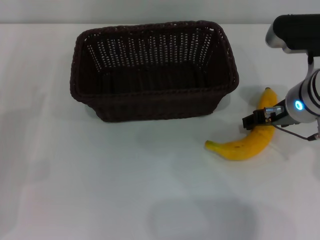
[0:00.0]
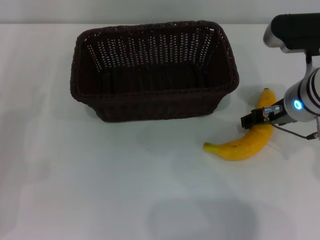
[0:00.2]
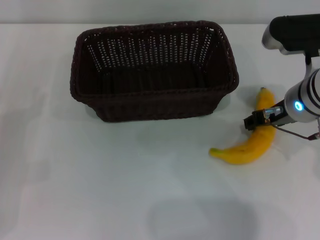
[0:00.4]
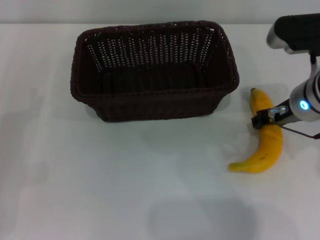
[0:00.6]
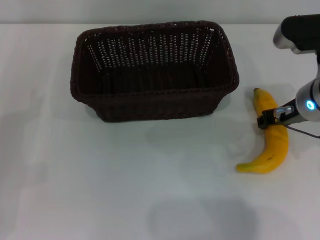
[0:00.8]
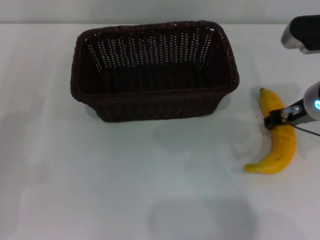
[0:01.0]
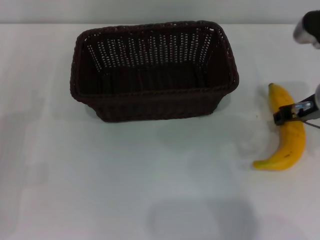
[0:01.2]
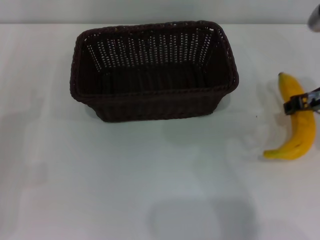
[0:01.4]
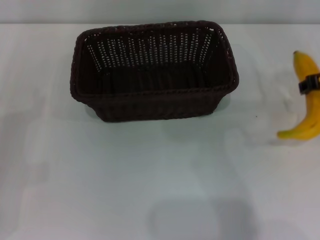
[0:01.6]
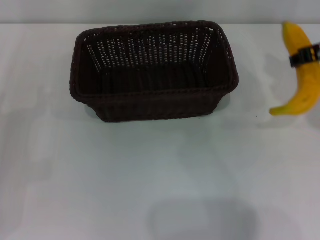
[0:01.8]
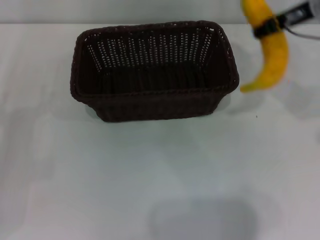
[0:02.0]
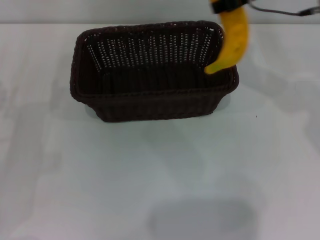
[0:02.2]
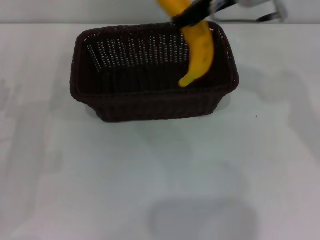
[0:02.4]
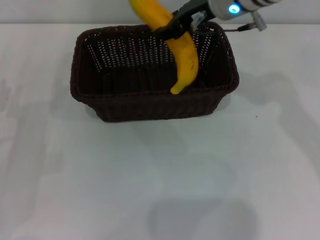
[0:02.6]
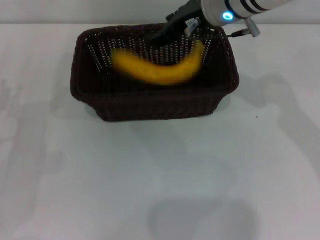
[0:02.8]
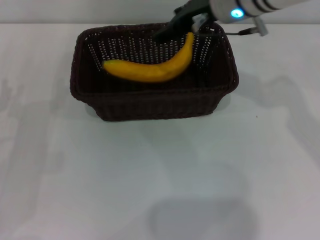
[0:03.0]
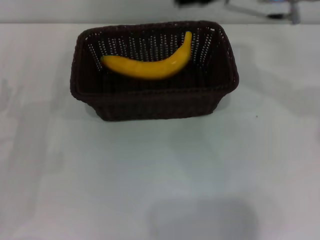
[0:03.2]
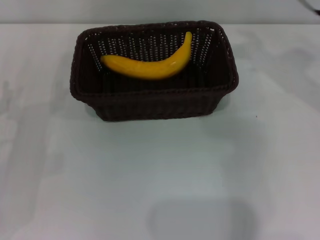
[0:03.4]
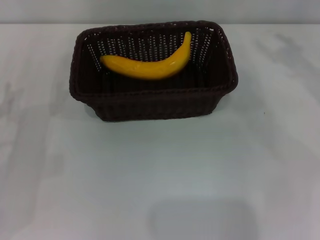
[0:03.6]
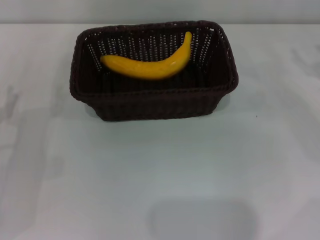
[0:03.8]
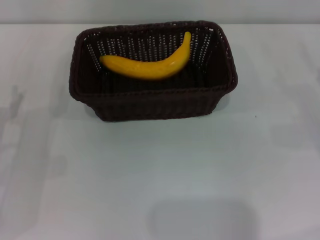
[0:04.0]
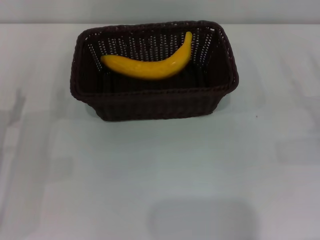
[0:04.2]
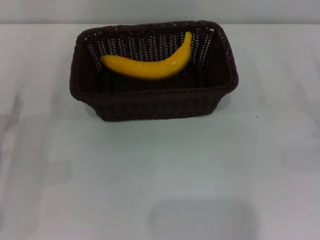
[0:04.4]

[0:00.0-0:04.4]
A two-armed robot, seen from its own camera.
Step, 0:01.6 to 0:02.8: Place the banana into the dark basket with the right gripper.
0:00.0 to 0:01.4: The right gripper travels to the right by about 5 cm, and closes its fingers.
0:01.4 to 0:03.0: The right gripper goes roughly 15 cm to the left, forward and upward, and opens.
0:03.0 to 0:04.4: The right gripper is displaced to the right, downward and backward by roughly 35 cm, and opens.
